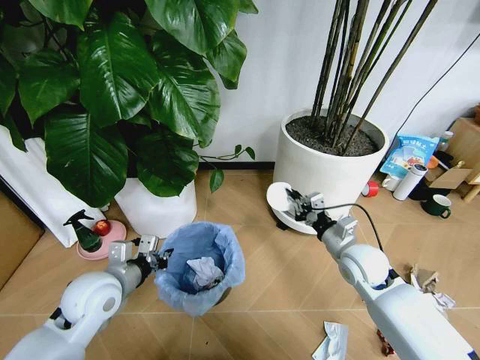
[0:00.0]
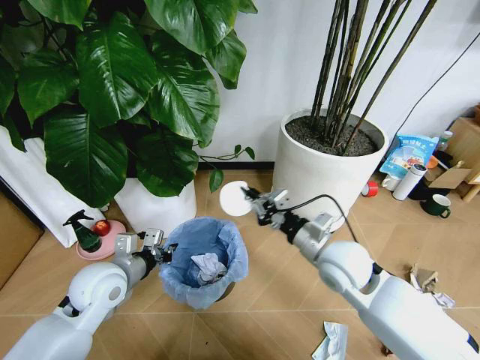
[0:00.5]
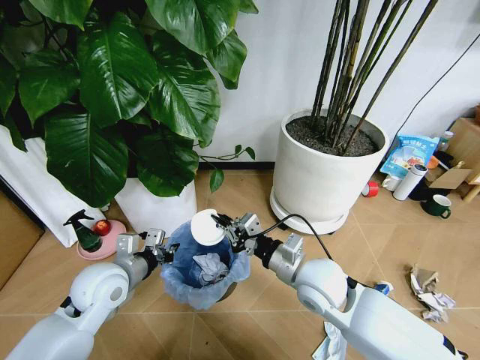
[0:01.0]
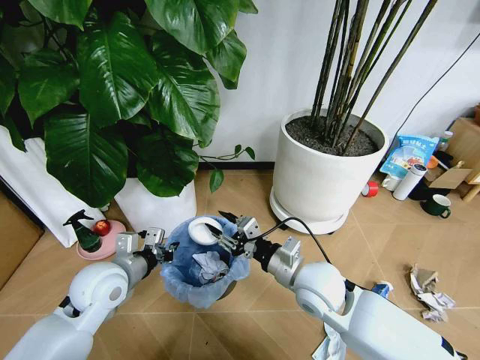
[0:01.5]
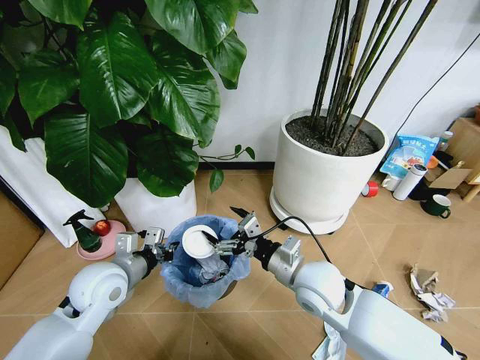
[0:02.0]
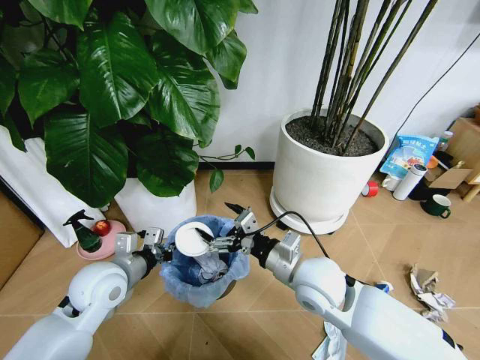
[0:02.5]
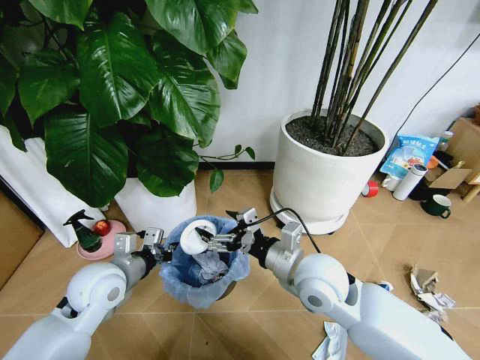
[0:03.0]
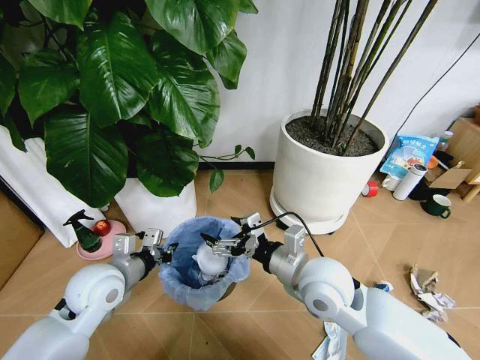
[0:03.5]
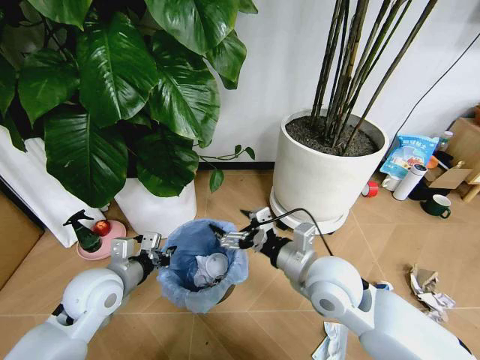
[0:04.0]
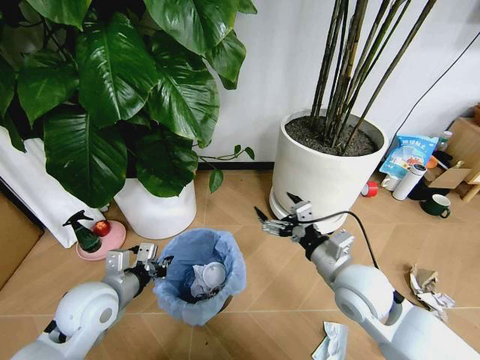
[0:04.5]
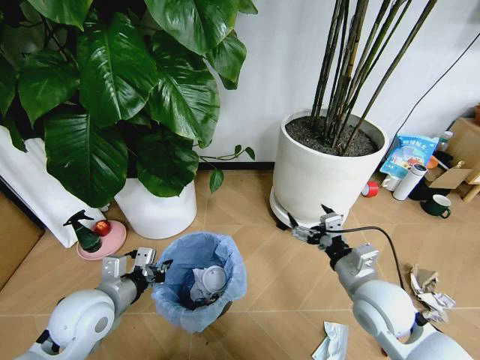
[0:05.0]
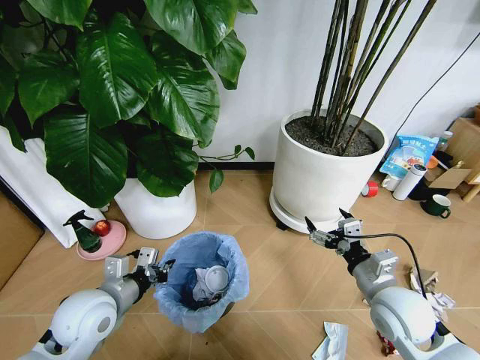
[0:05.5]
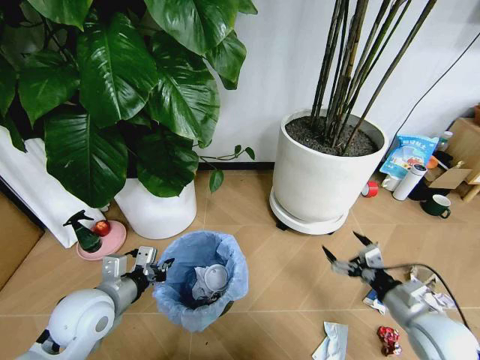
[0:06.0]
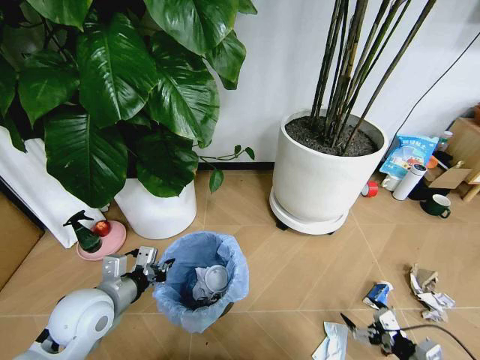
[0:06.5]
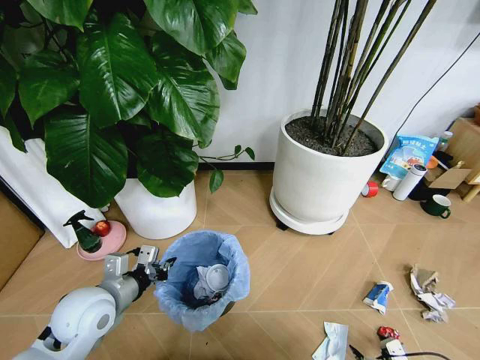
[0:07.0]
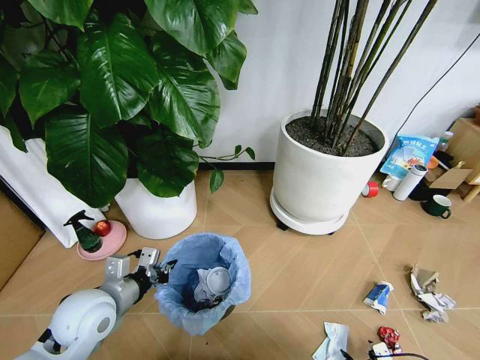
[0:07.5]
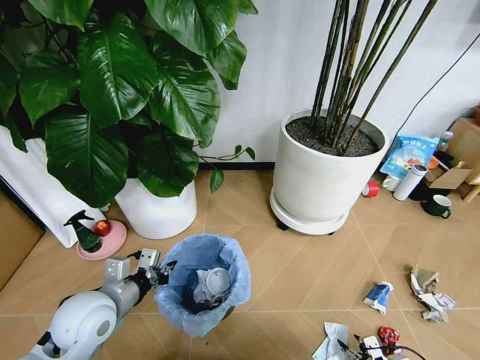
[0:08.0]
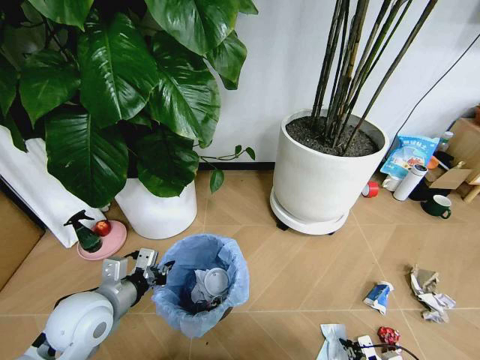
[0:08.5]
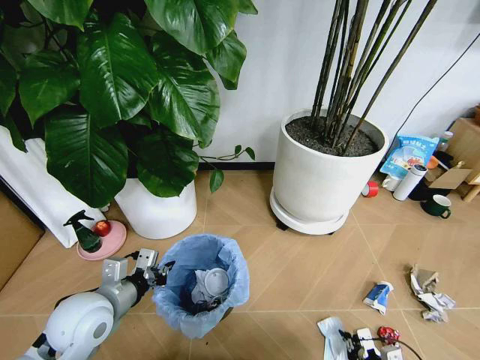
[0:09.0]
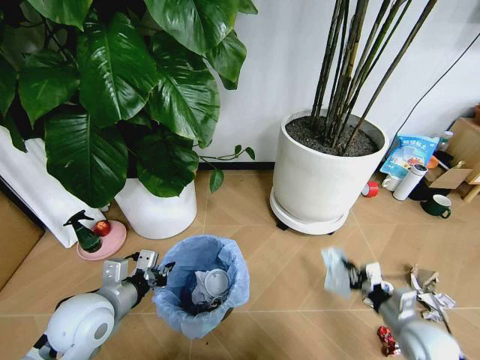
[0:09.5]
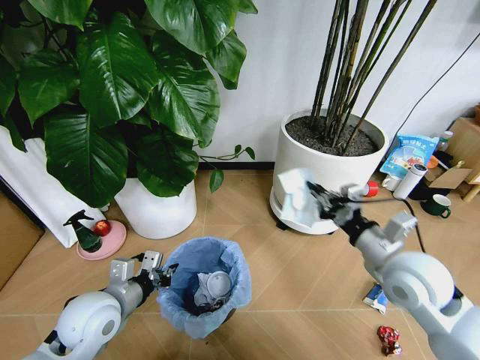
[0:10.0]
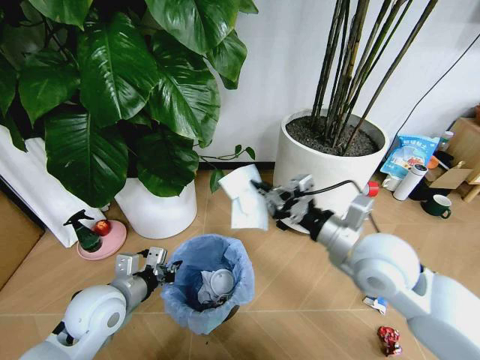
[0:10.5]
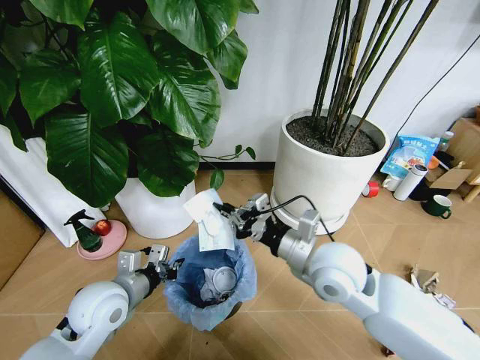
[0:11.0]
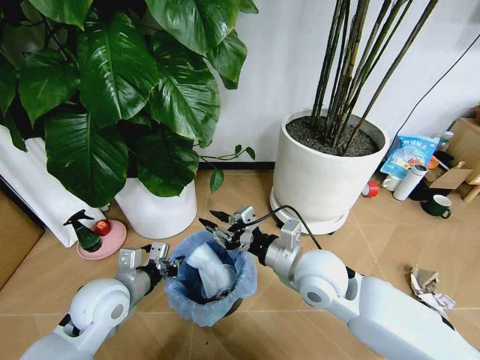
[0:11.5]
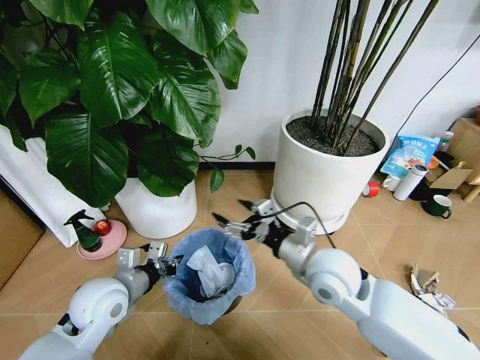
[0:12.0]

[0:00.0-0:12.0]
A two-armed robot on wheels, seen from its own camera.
Task of the whole recording: Pick up the trash bin and place the garbage on the floor into it.
0:00.0 to 0:02.0: The right gripper is displaced to the left and backward by roughly 15 cm, and opens.
0:02.0 to 0:04.0: The right gripper moves some 5 cm.
0:04.0 to 0:06.0: The right gripper moves to the right and downward, roughly 25 cm.
0:06.0 to 0:08.0: The right gripper moves downward and backward, about 20 cm, and closes up.
0:08.0 to 0:10.0: The right gripper shifts some 35 cm upward and forward, and closes up.
0:10.0 to 0:12.0: The right gripper is displaced to the left by about 15 cm, and opens.

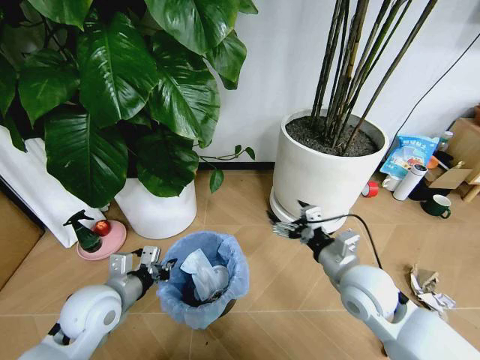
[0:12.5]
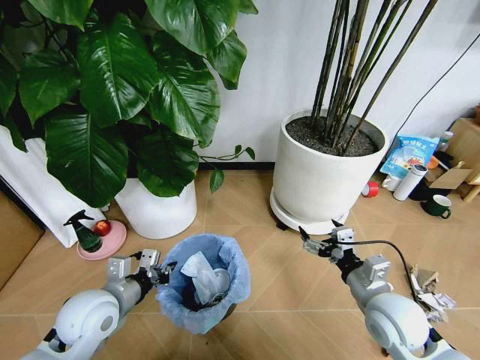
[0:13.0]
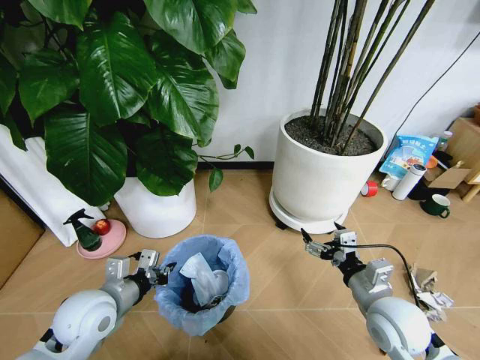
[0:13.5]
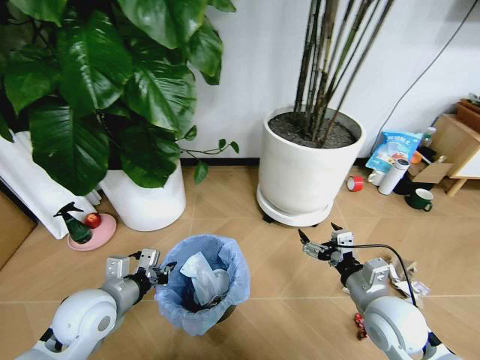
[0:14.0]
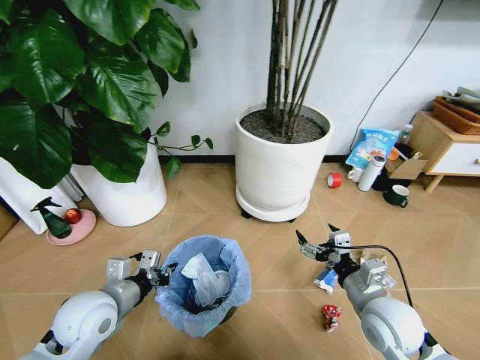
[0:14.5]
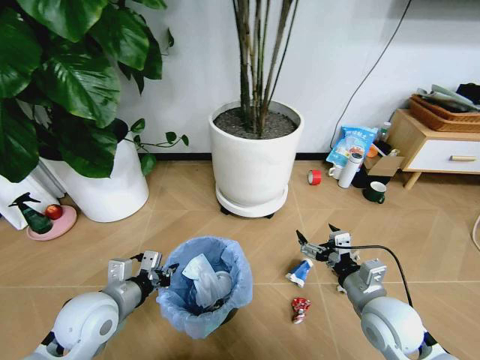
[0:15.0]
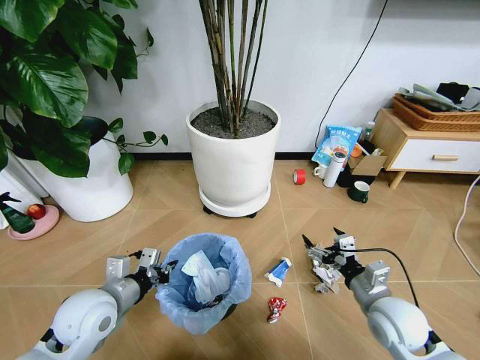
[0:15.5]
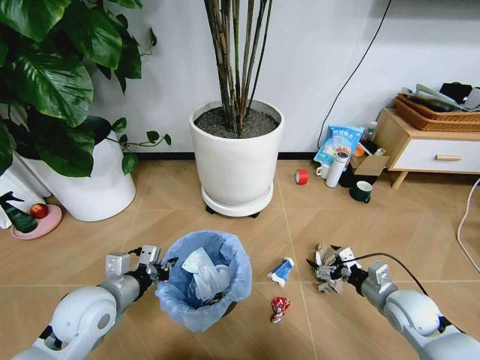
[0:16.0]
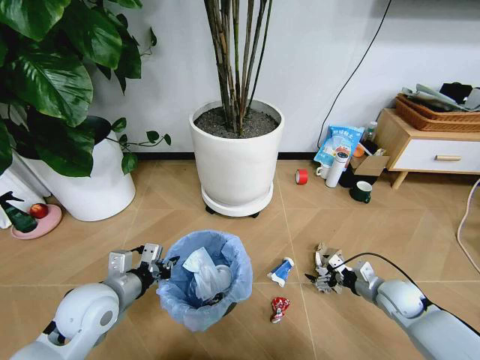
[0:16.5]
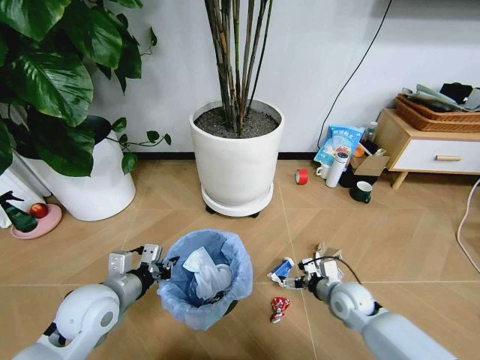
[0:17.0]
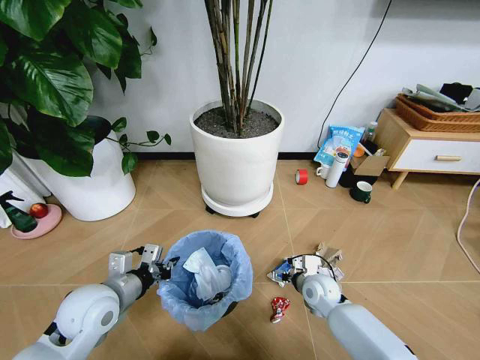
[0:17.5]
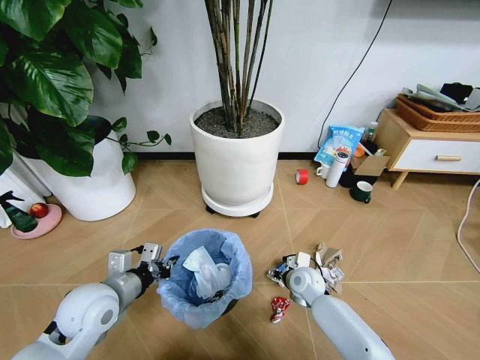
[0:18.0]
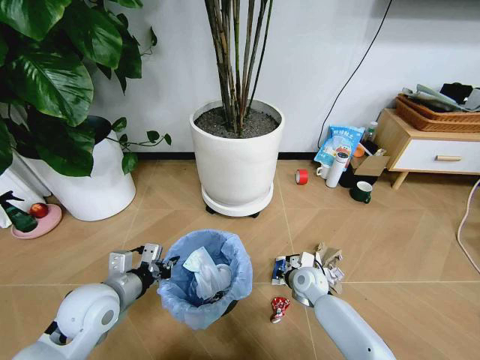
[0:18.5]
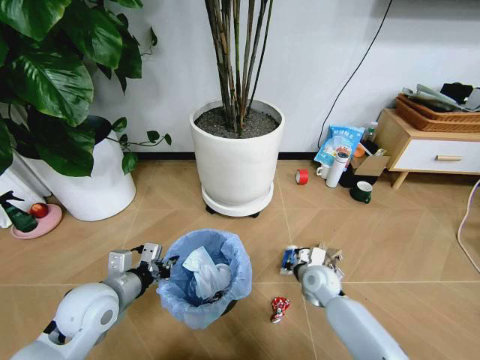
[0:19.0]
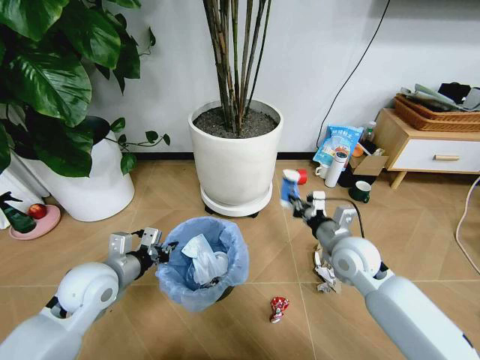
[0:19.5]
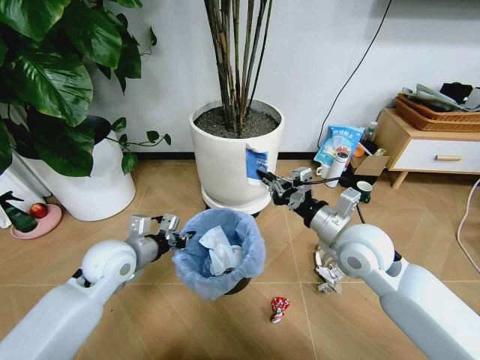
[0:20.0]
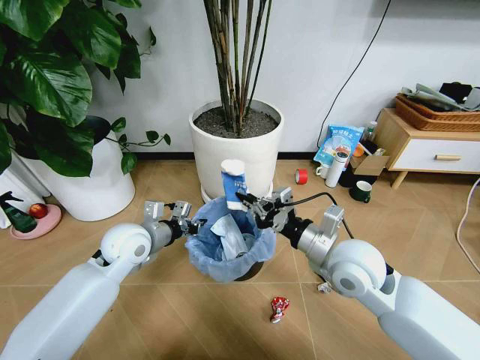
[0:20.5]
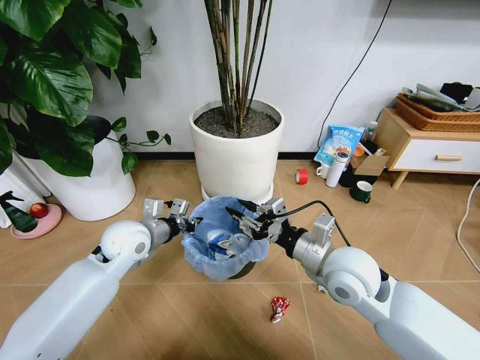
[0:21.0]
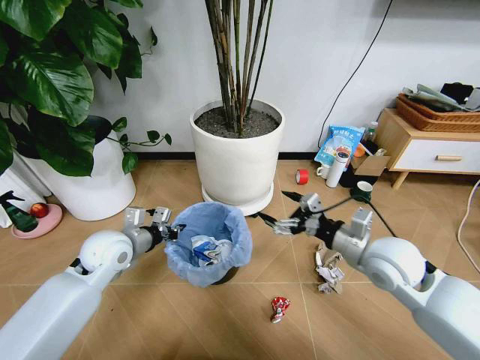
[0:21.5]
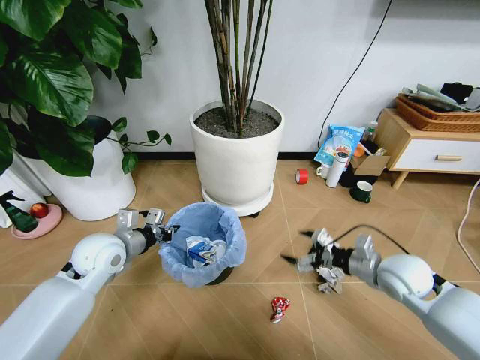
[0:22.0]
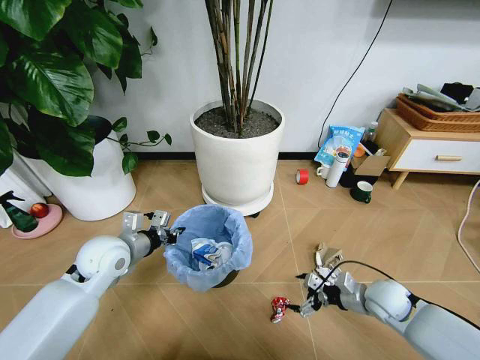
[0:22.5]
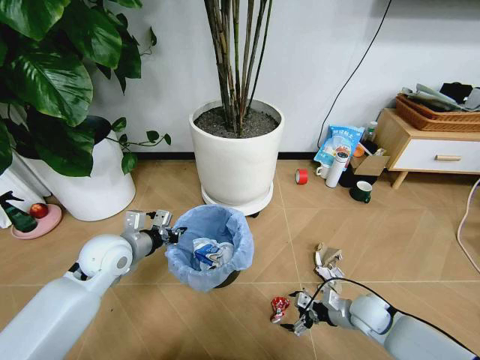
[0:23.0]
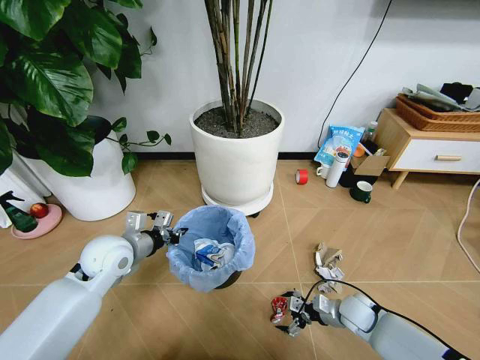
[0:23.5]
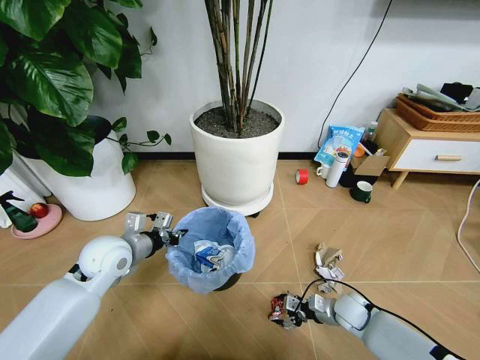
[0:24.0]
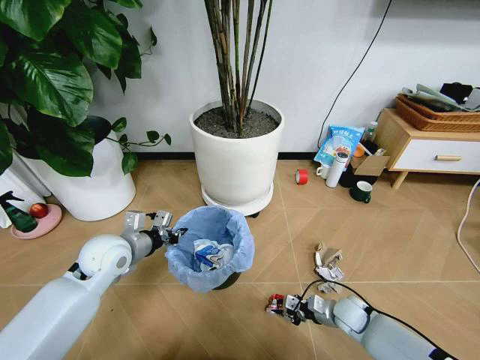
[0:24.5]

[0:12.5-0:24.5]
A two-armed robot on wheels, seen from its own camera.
Task of the whole recording: Pick up the trash bin and place the garbage on the floor into it.
0:12.5 to 0:14.5: The right gripper shifts by roughly 5 cm.
0:14.5 to 0:16.5: The right gripper shifts about 20 cm to the right, downward and forward.
0:16.5 to 0:18.5: The right gripper goes roughly 20 cm to the left, and closes.
0:18.5 to 0:20.5: The right gripper travels upward by about 25 cm; the left gripper is displaced forward by some 10 cm.
0:20.5 to 0:22.5: The right gripper heads downward and to the right, covering about 25 cm, and opens.
0:22.5 to 0:24.5: The right gripper goes about 10 cm downward, and closes.

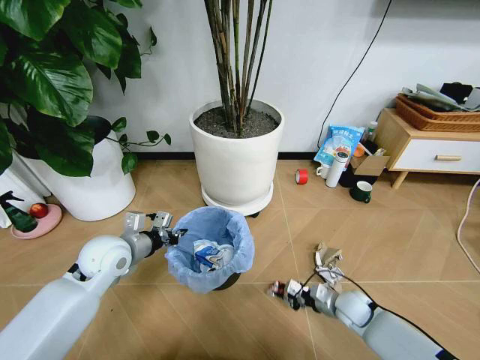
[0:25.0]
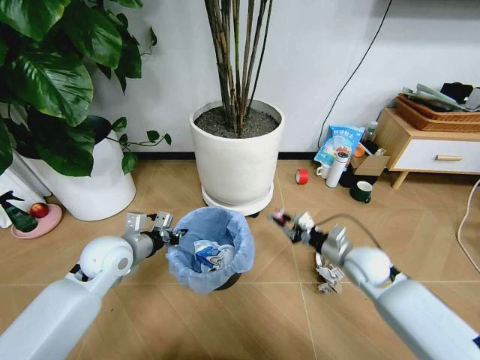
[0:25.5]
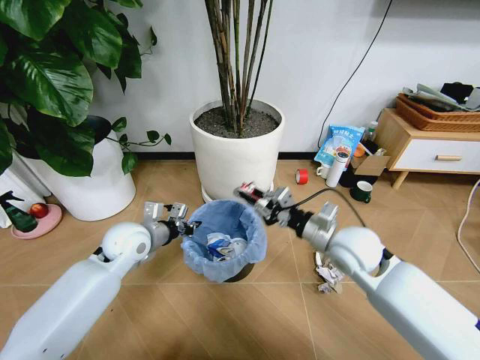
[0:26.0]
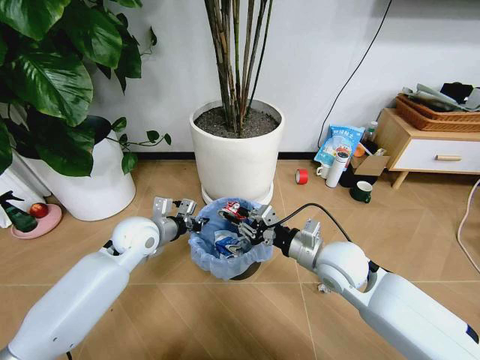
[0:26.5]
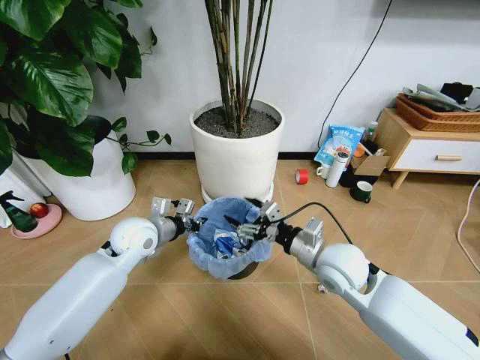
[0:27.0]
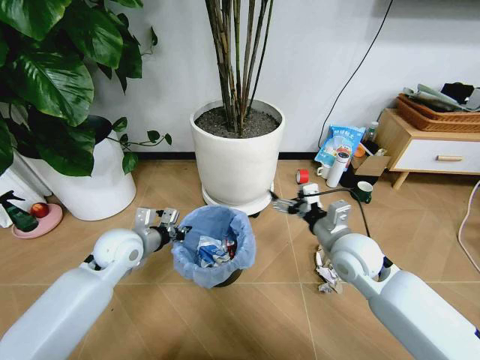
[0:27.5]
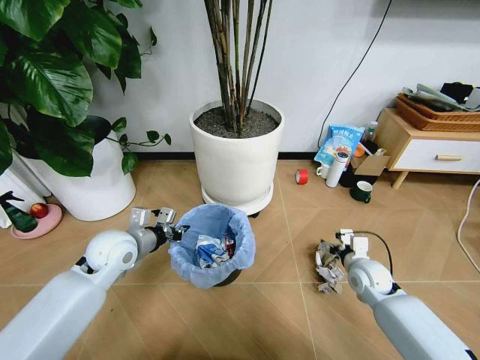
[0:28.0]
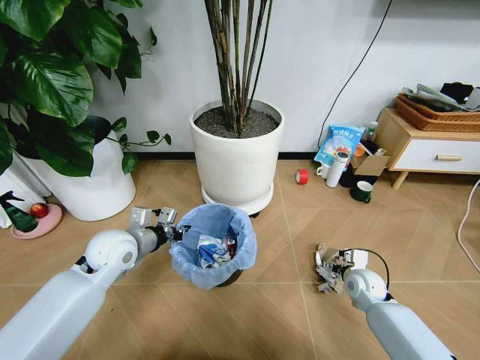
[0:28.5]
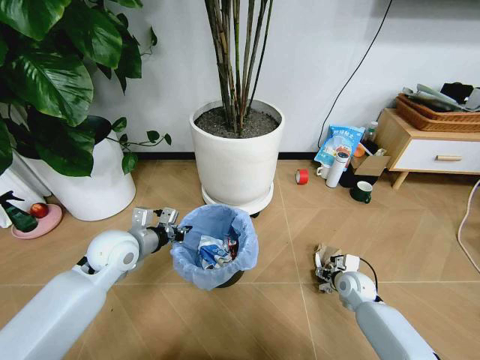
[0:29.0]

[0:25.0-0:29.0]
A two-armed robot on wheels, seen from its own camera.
Task of the whole recording: Pick up the trash bin and place the garbage on the floor into it.
0:25.0 to 0:27.0: The left gripper shifts approximately 5 cm to the right. The right gripper shifts roughly 25 cm upward and to the left, and opens up.
0:27.0 to 0:29.0: The right gripper is displaced downward and to the right by roughly 25 cm.
